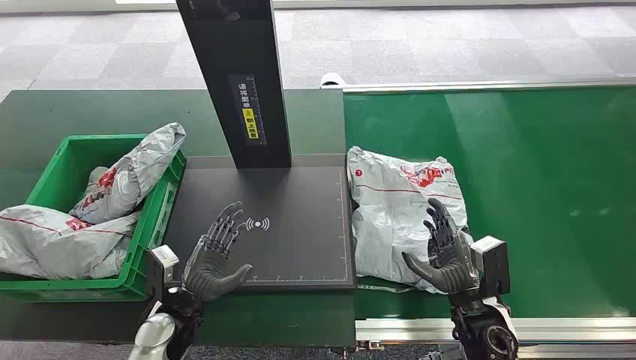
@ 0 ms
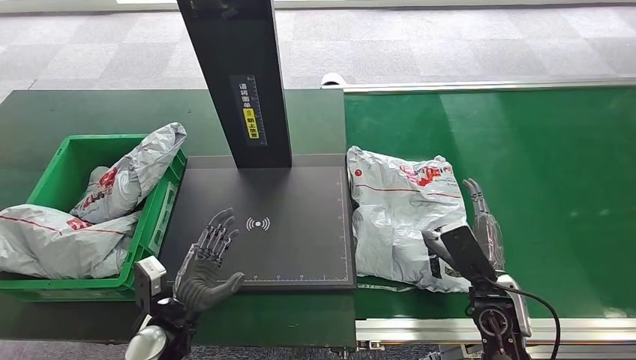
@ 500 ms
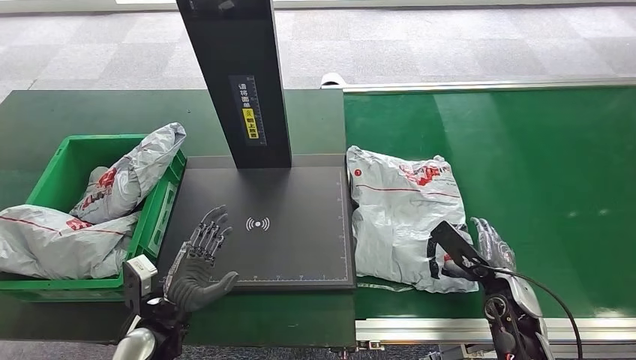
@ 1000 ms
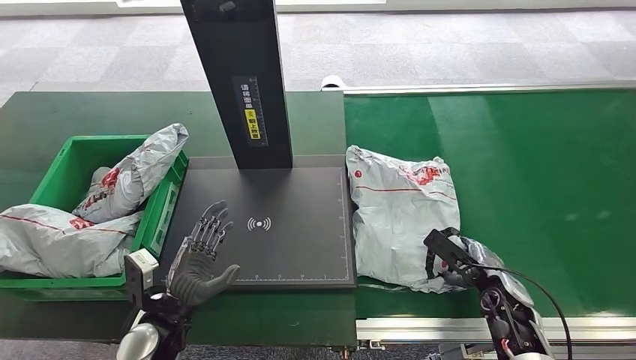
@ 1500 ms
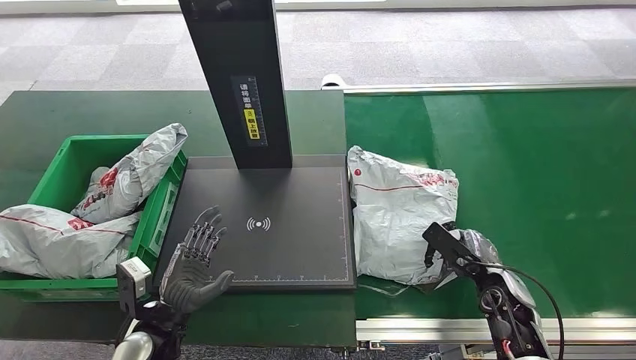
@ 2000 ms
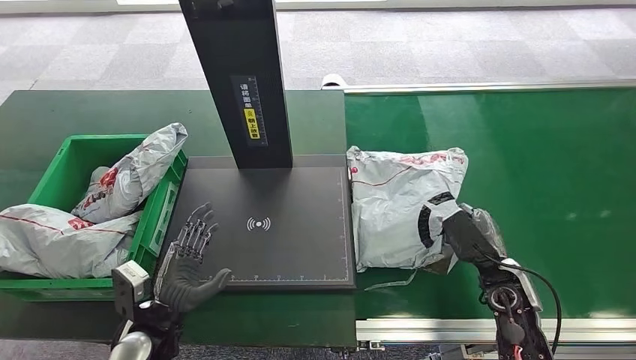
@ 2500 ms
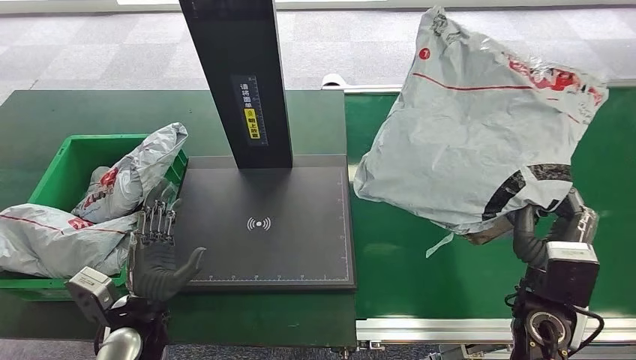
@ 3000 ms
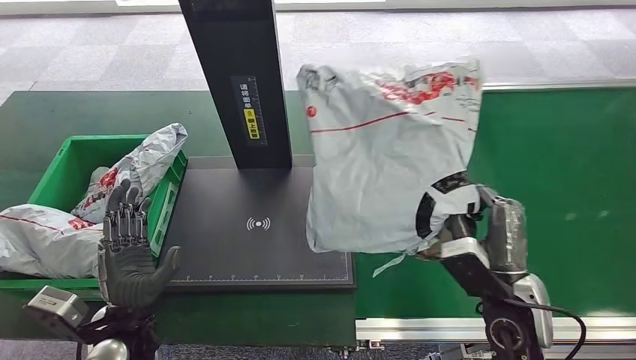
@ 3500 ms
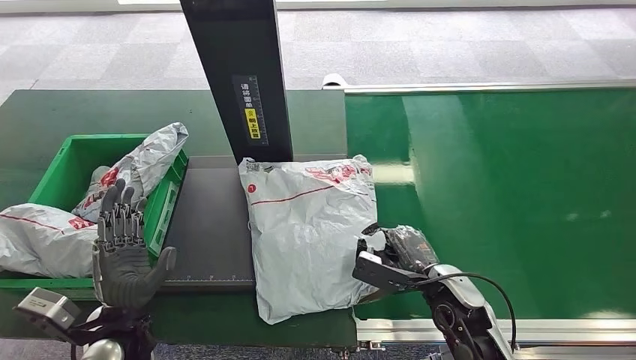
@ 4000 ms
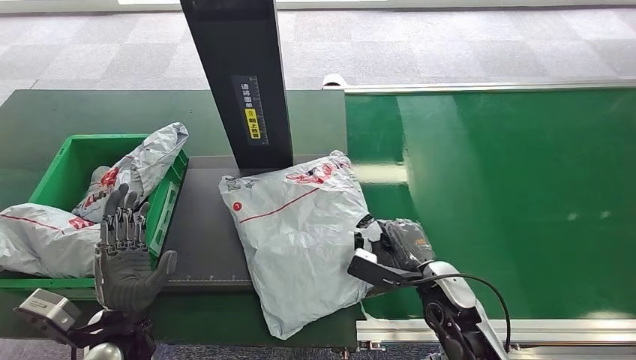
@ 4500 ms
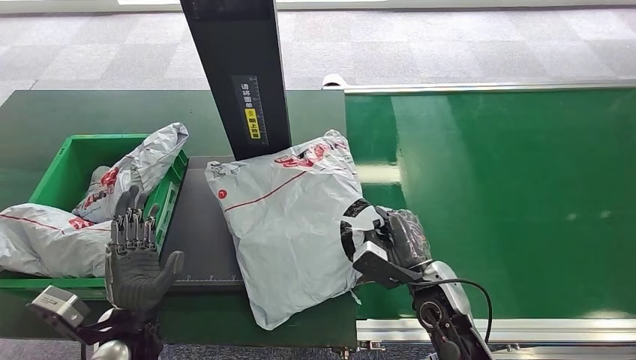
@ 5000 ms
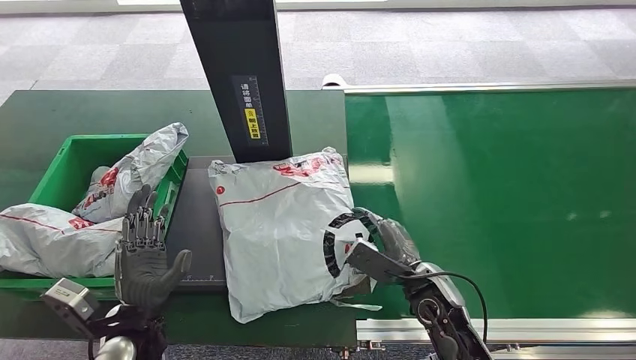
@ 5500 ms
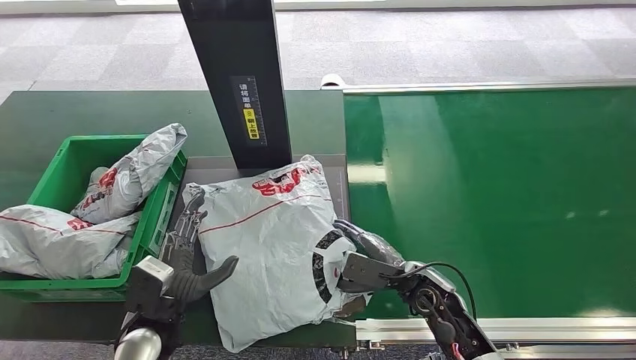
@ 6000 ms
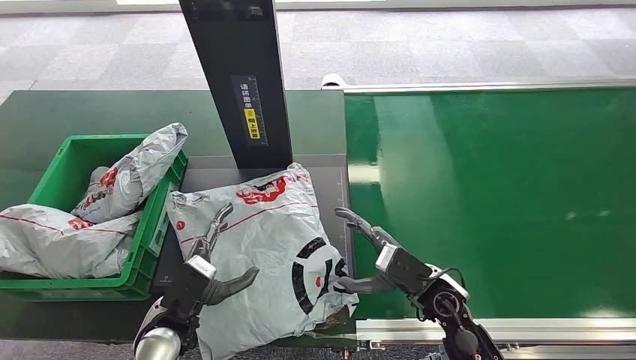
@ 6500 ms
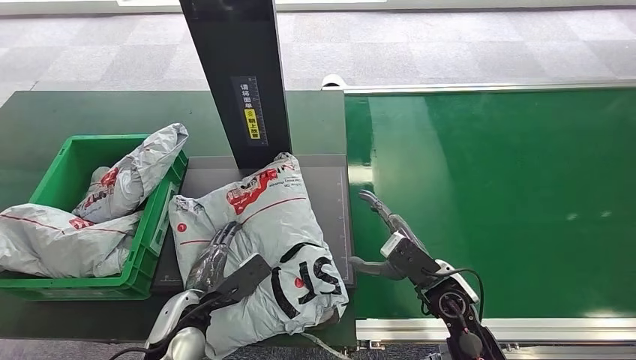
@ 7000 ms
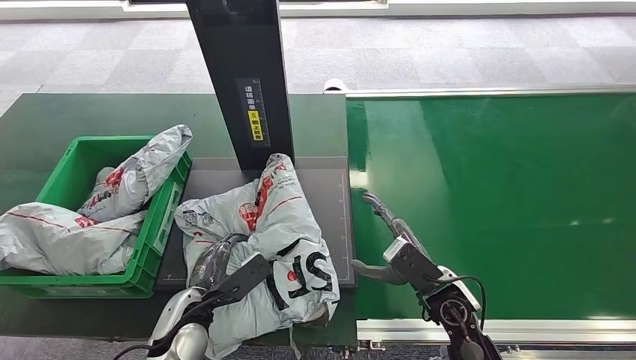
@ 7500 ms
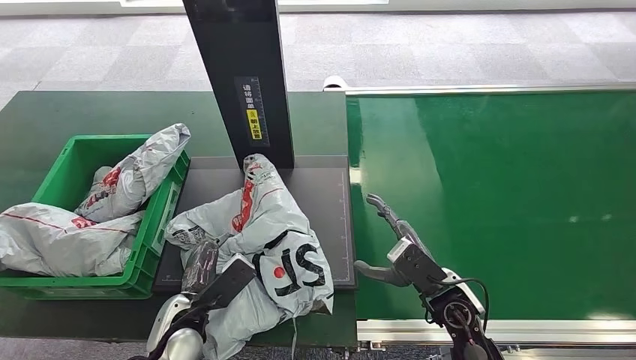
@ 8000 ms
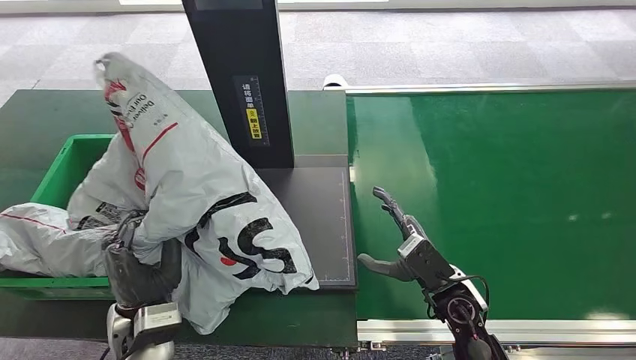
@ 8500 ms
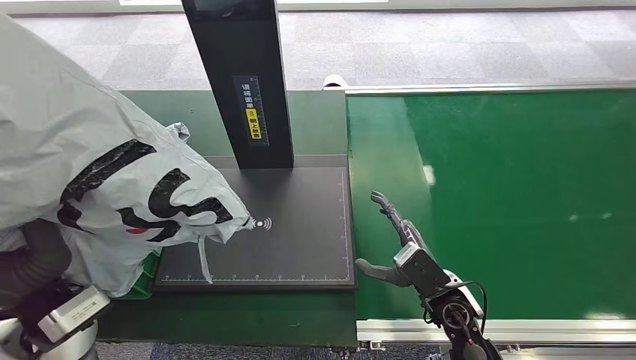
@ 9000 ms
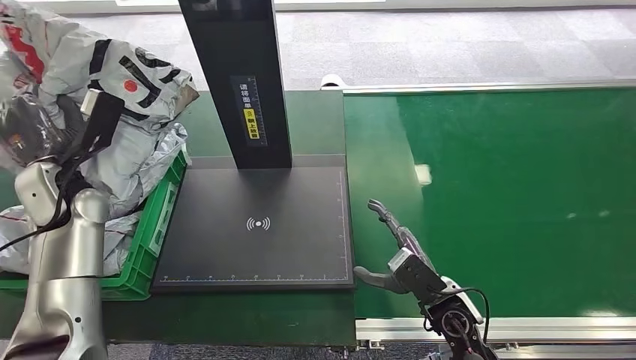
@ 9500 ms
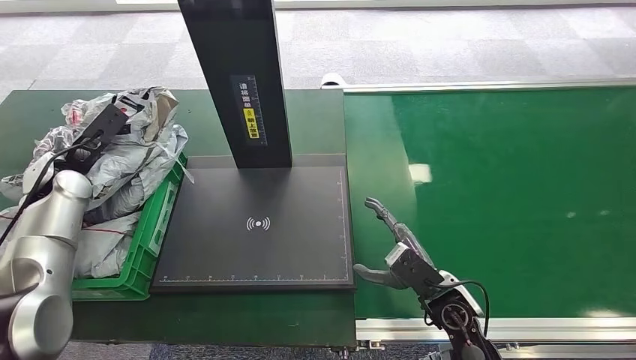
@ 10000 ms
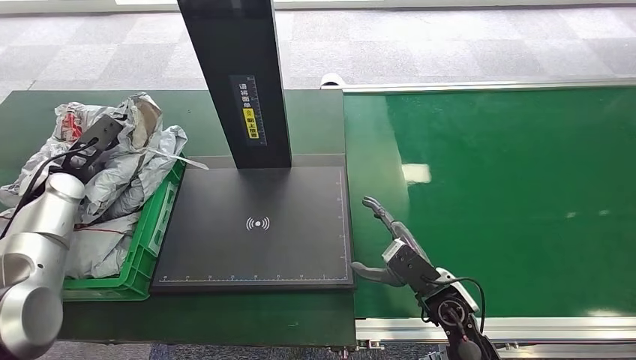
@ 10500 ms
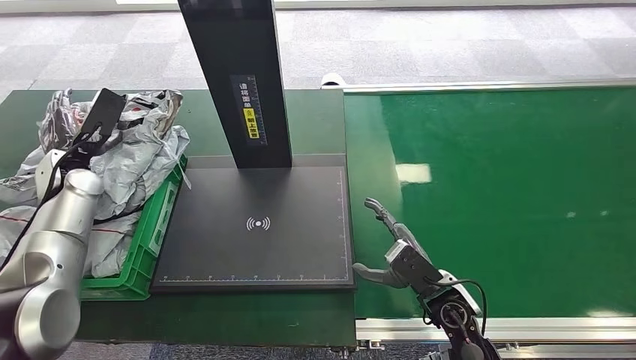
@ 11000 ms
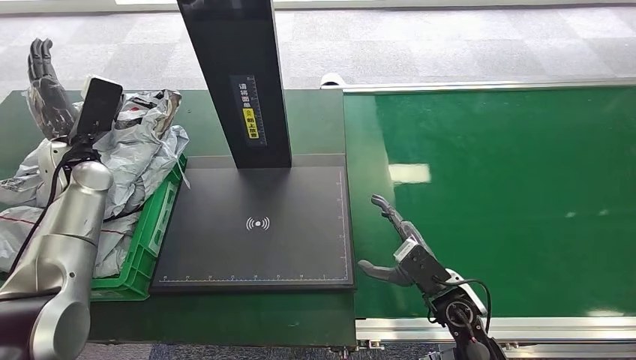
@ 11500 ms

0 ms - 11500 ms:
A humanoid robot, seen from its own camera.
Step, 0 ms - 3000 ms: Pick up the package from the conveyor belt.
Step, 3500 ms - 6000 ms: Place the package onto the inbound machine.
Step, 7000 ms - 8500 ms: Pick up the package from the inbound machine.
Step, 9000 ms - 11000 ms: Place the package into the parcel locker.
